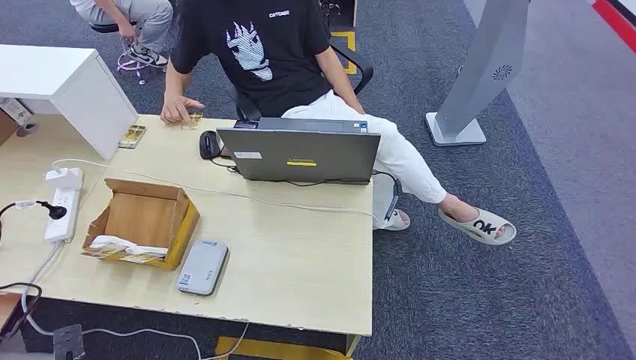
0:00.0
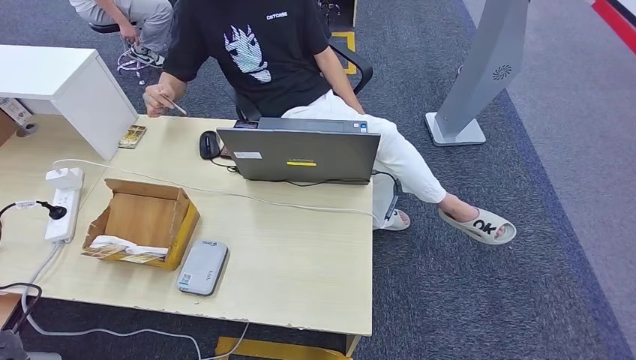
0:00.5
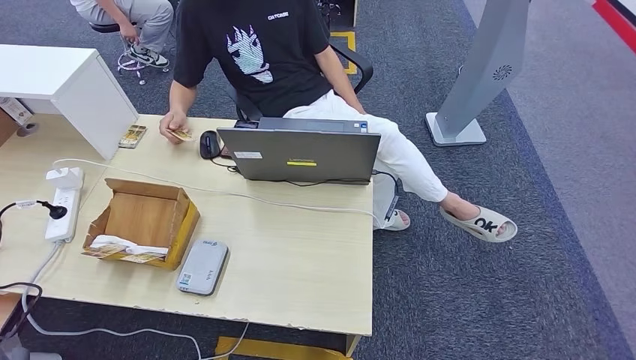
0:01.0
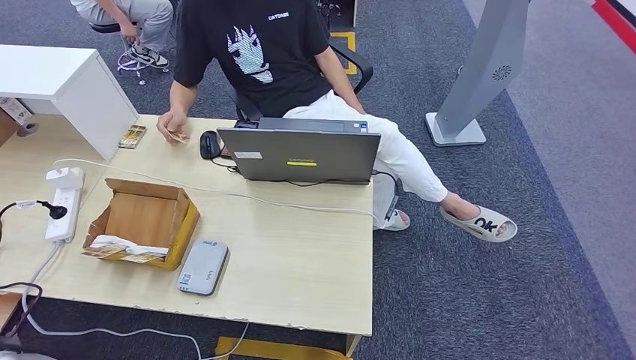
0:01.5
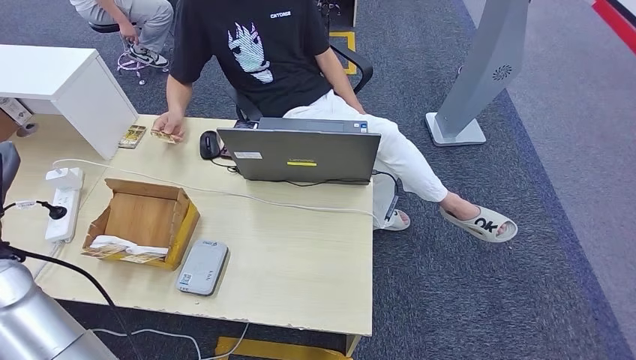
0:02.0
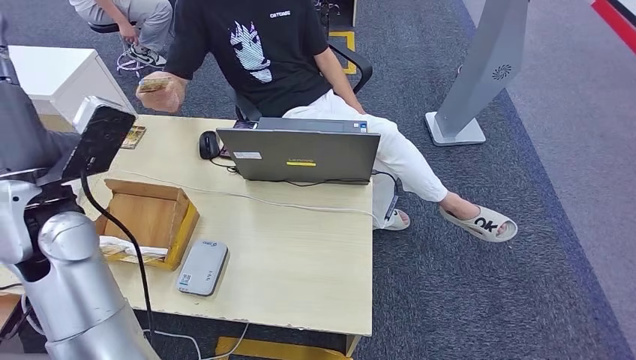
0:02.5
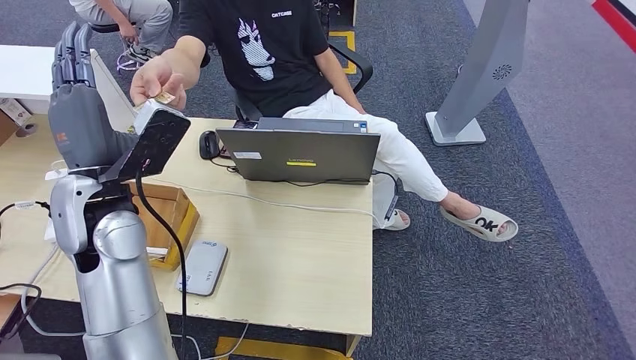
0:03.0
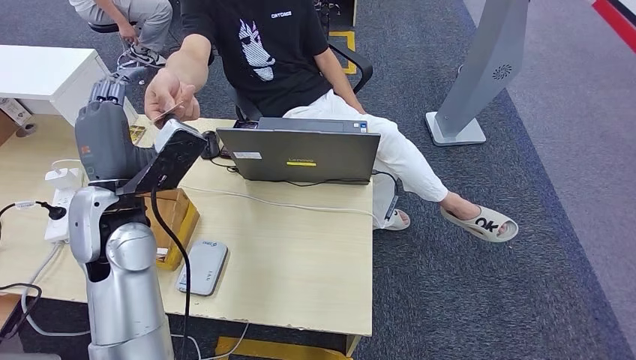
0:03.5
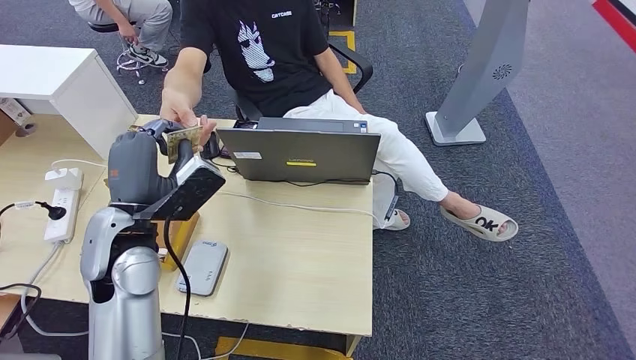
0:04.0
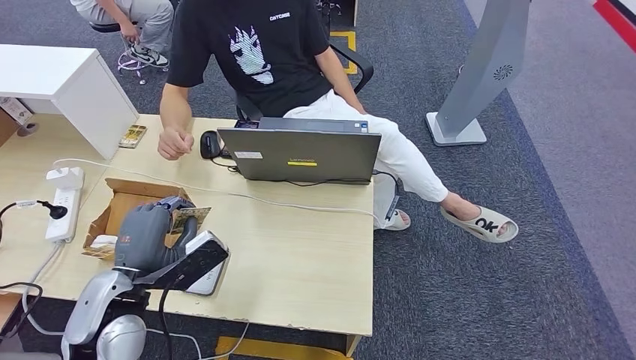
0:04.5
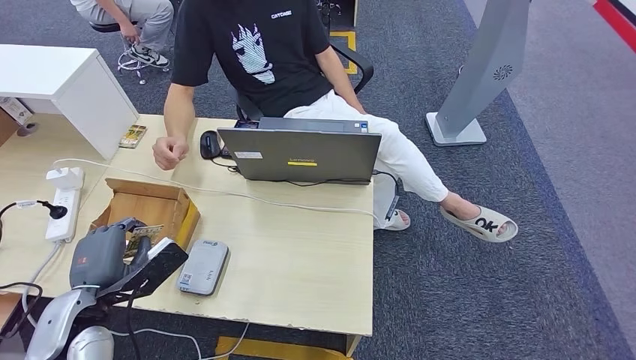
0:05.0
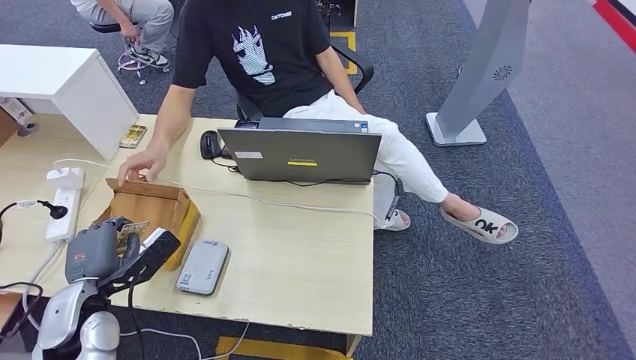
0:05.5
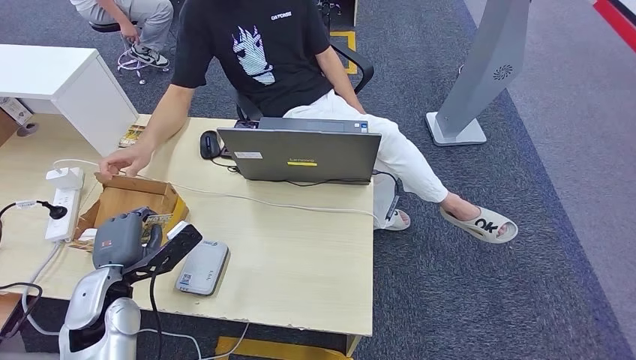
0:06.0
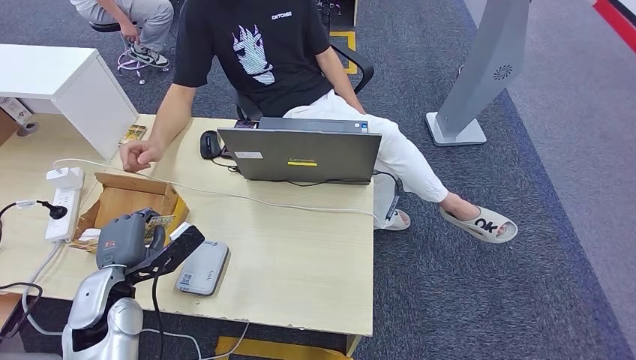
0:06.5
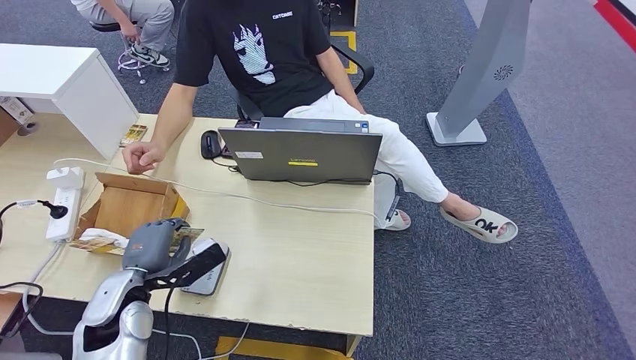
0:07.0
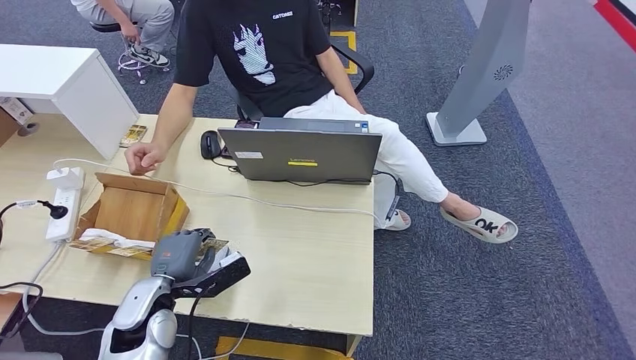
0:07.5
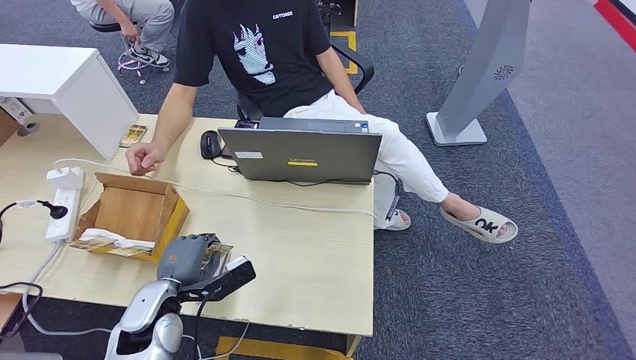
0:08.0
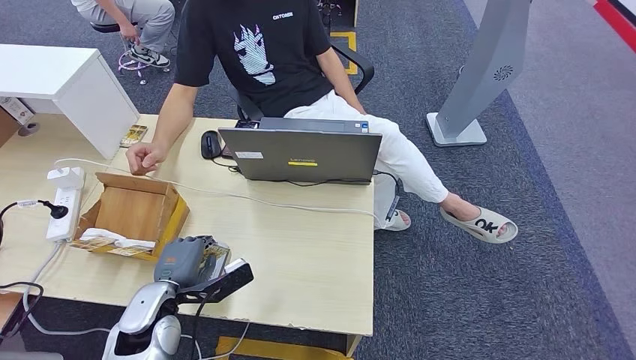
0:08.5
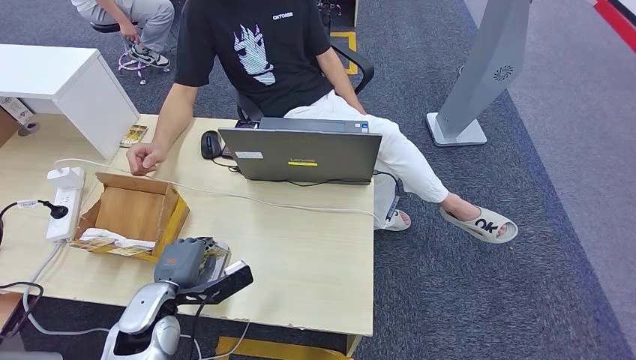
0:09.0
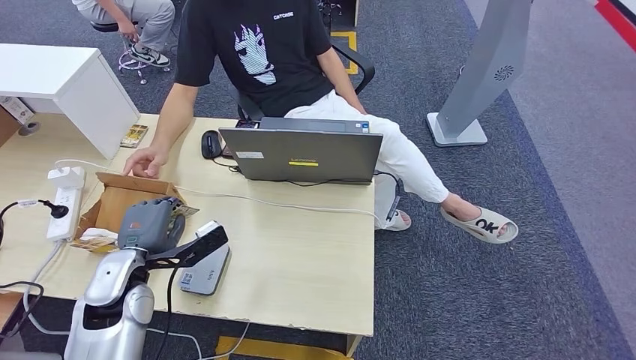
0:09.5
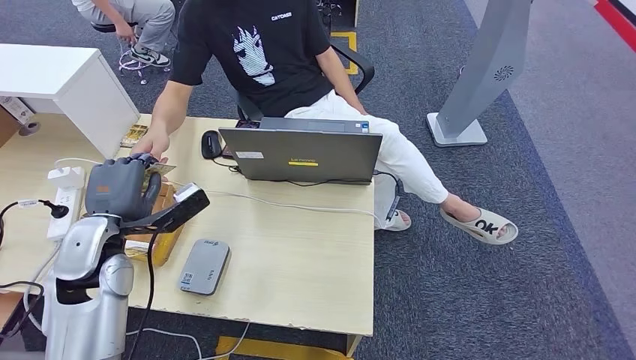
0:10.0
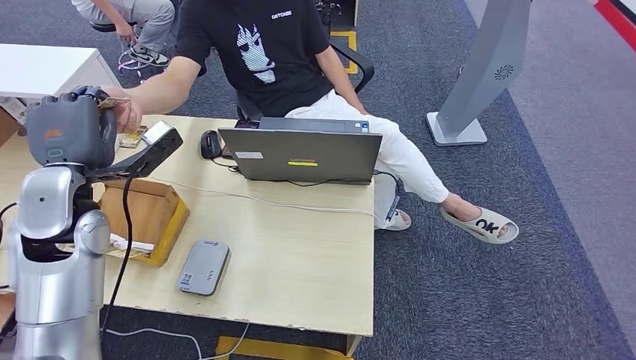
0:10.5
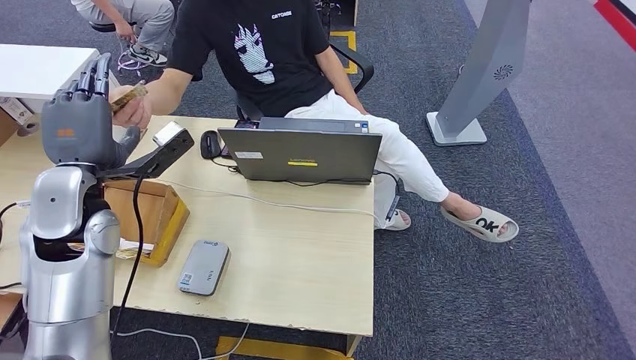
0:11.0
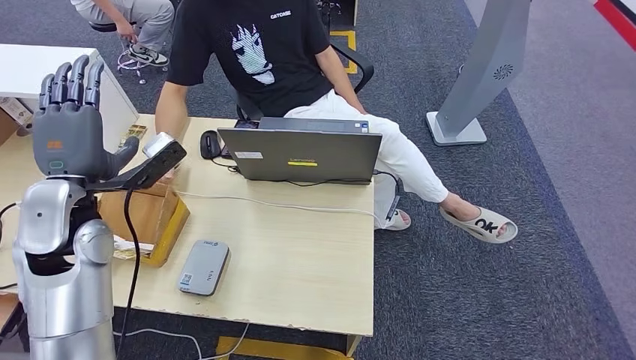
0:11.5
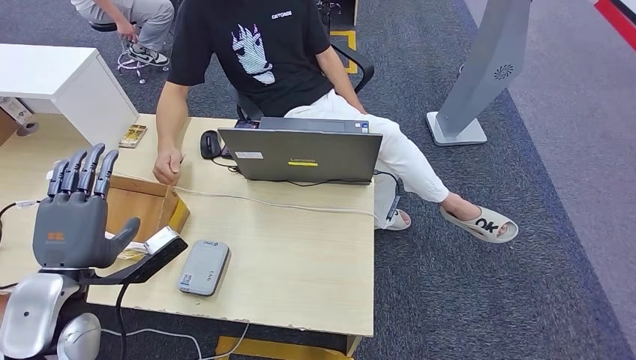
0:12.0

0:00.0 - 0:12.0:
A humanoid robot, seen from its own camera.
Step, 0:00.0 - 0:05.5: Take the ID card from the person's hand.
Step, 0:06.0 - 0:08.5: Place the ID card on the card reader.
0:02.0 - 0:04.0: The left hand heads to the right and forward, covering some 15 cm.
0:04.0 - 0:06.0: The left hand shifts some 15 cm downward, to the left and backward.
0:06.0 - 0:08.0: The left hand is displaced to the right by approximately 5 cm.
0:08.0 - 0:10.0: The left hand is displaced upward, to the left and forward by roughly 15 cm.
0:10.0 - 0:12.0: The left hand travels backward by approximately 10 cm.

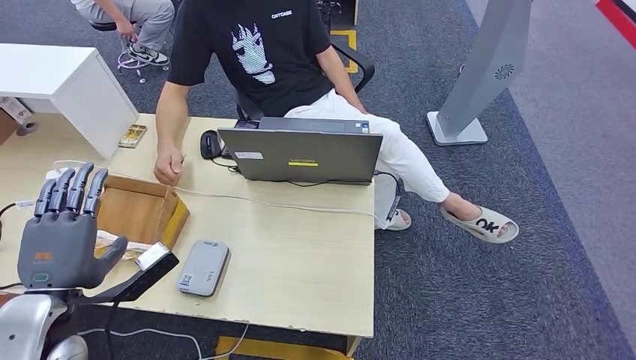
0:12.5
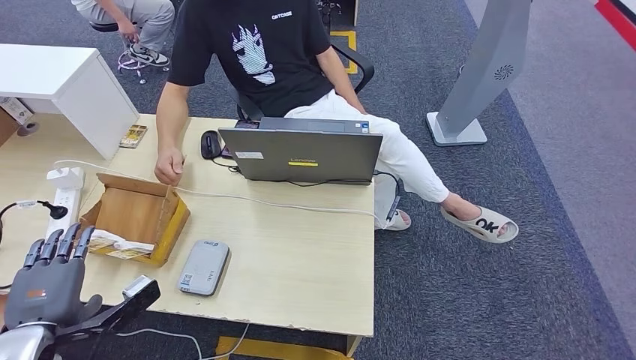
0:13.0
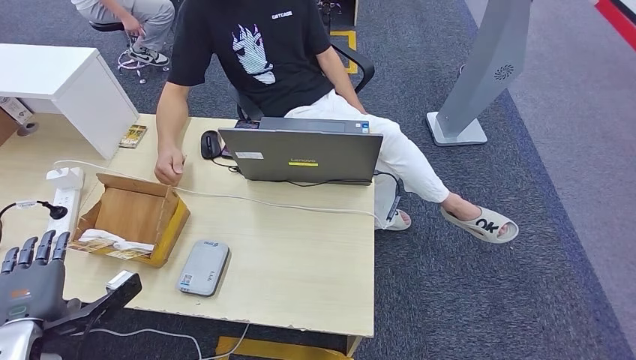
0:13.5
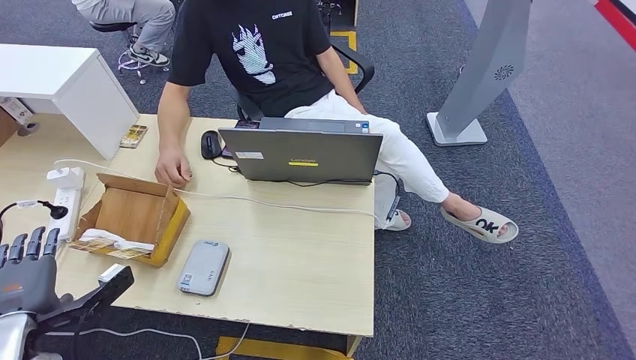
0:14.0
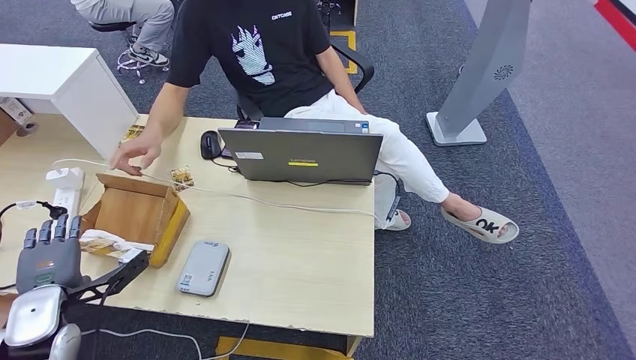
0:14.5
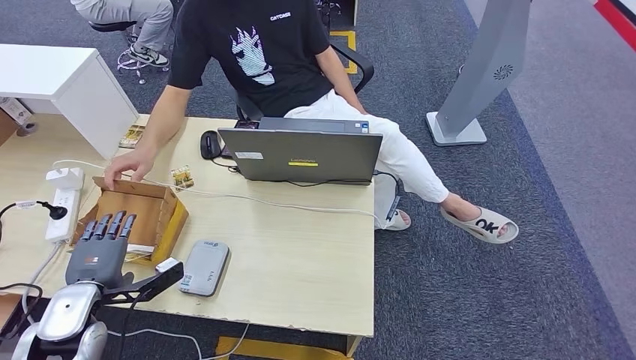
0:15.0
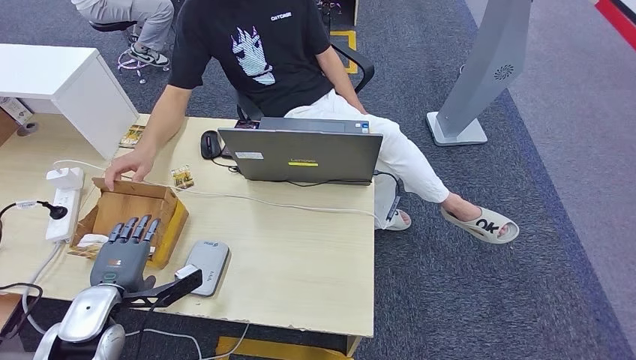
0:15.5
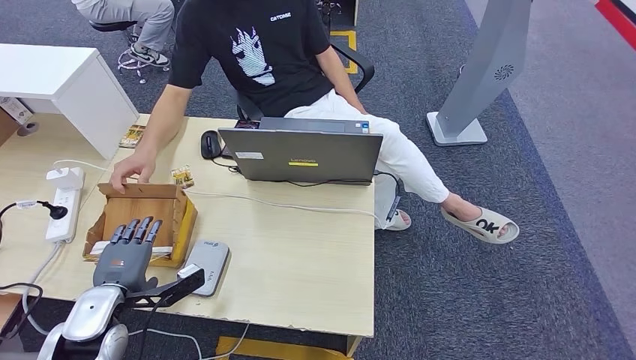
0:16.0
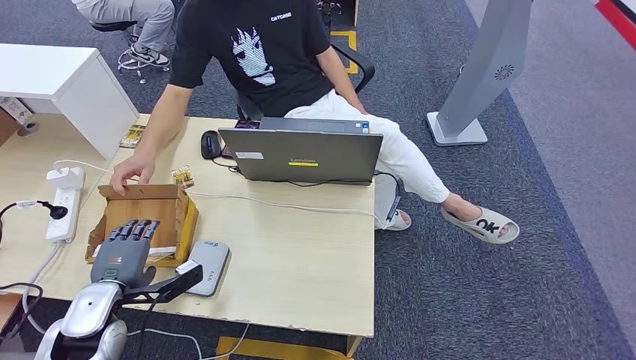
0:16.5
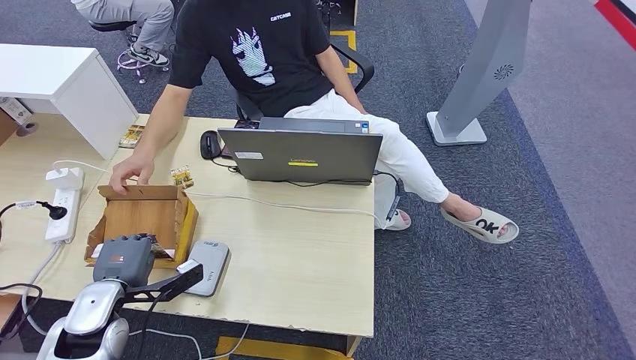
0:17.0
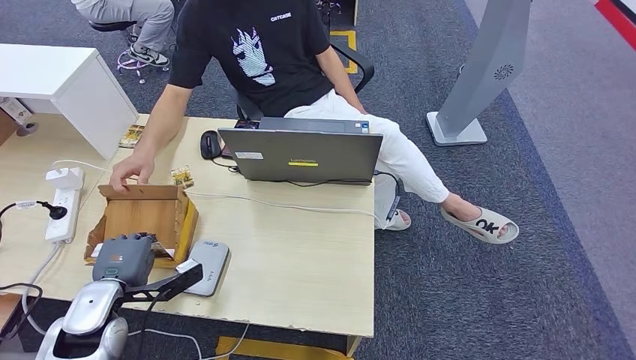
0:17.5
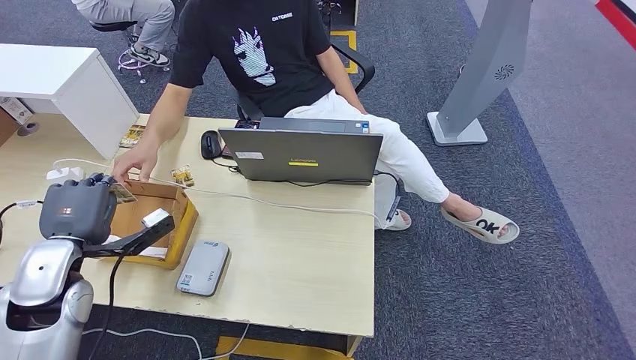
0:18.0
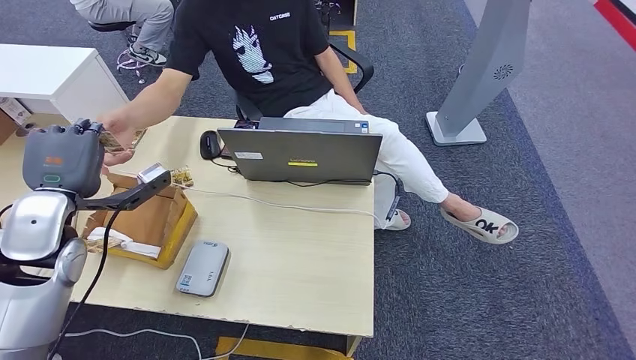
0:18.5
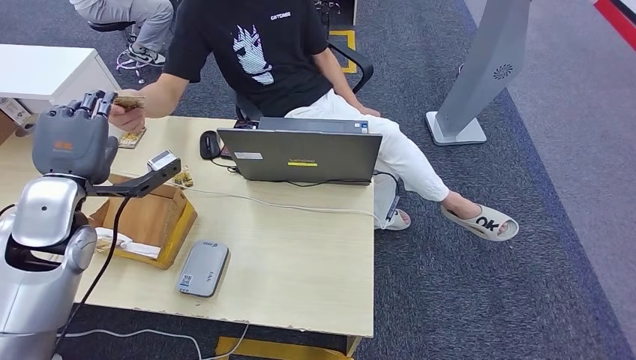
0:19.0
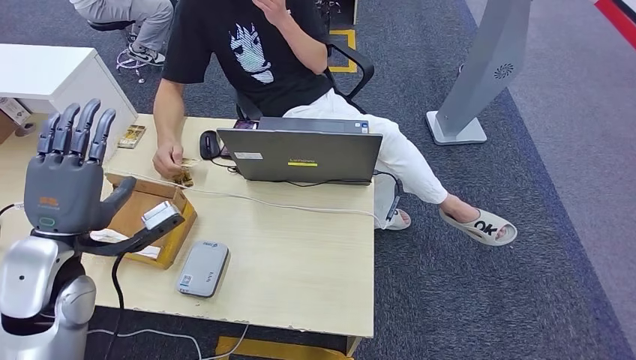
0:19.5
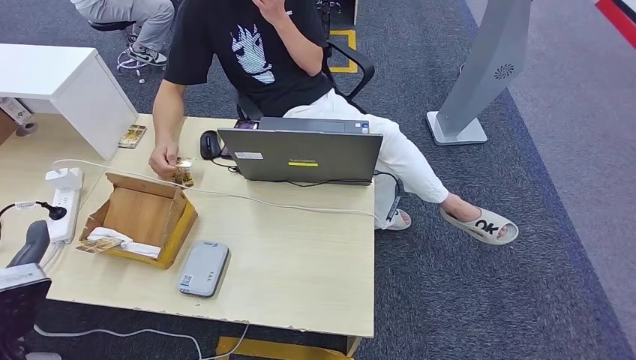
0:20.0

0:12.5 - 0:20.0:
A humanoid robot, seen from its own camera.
Step, 0:13.0 - 0:18.0: Pick up the room key from the key card box.
Step, 0:18.5 - 0:20.0: Hand the room key to the person.
0:12.5 - 0:14.5: The left hand shifts some 10 cm to the left and downward.
0:14.5 - 0:16.5: The left hand moves to the right, roughly 5 cm.
0:16.5 - 0:18.0: The left hand heads upward, covering some 10 cm.
0:18.0 - 0:20.0: The left hand moves backward, roughly 10 cm.
